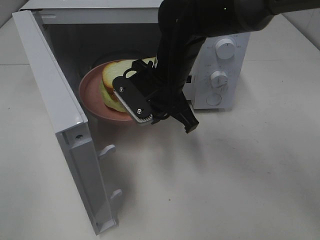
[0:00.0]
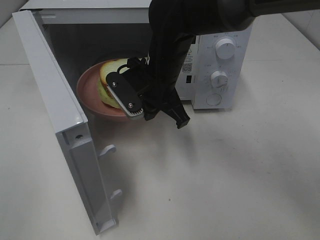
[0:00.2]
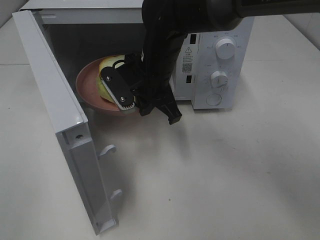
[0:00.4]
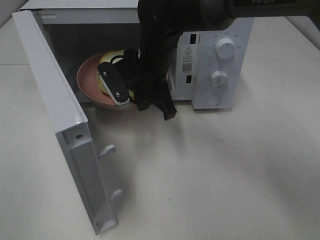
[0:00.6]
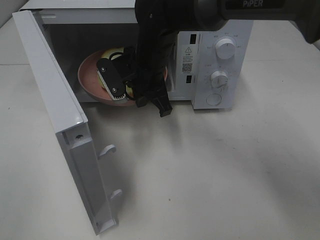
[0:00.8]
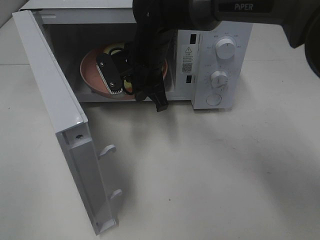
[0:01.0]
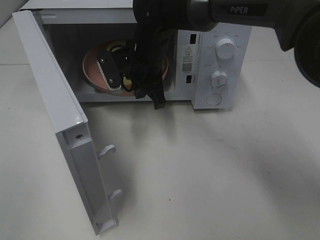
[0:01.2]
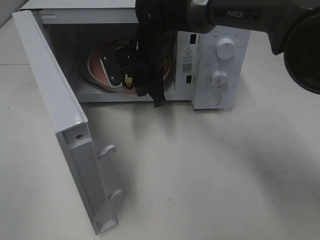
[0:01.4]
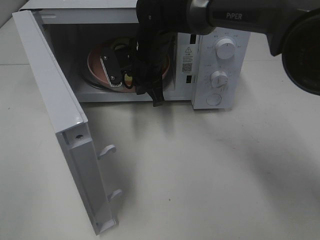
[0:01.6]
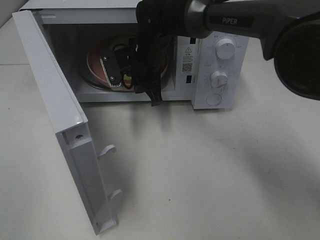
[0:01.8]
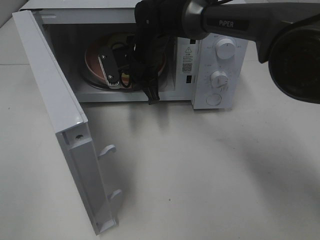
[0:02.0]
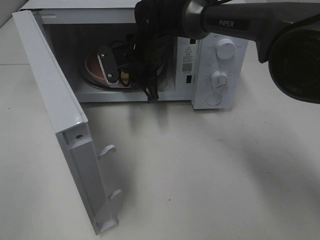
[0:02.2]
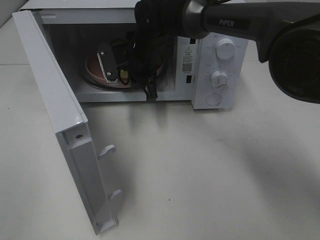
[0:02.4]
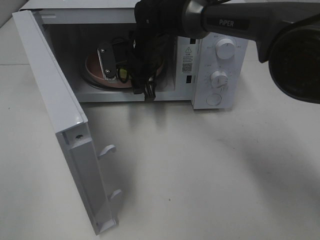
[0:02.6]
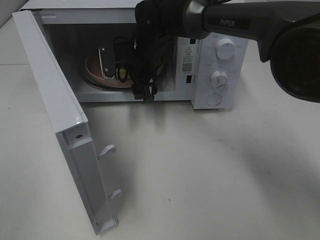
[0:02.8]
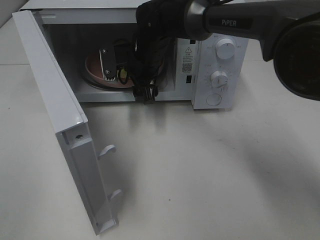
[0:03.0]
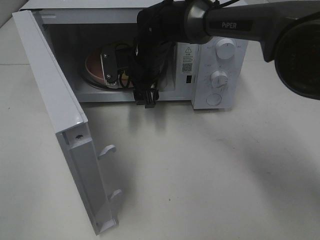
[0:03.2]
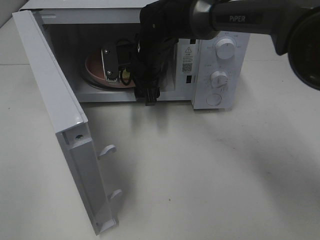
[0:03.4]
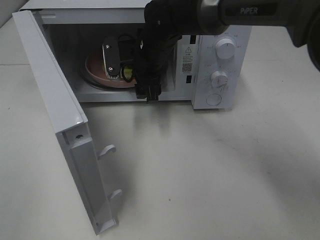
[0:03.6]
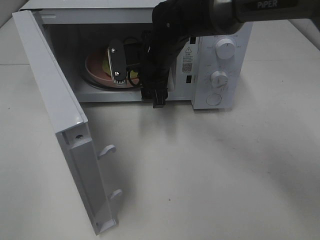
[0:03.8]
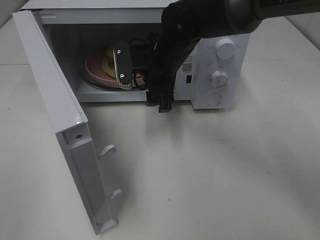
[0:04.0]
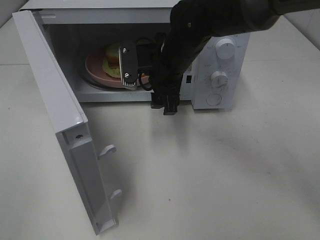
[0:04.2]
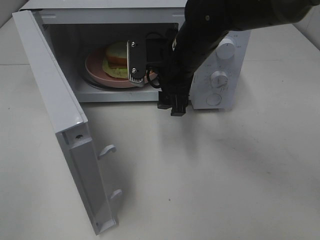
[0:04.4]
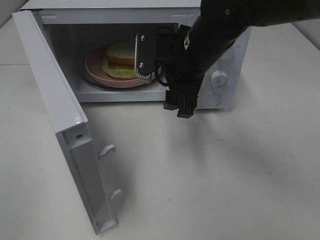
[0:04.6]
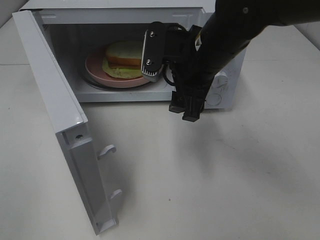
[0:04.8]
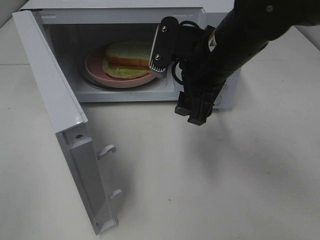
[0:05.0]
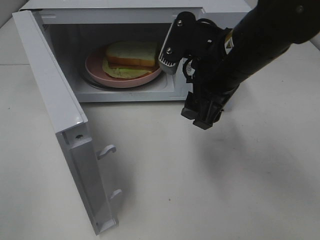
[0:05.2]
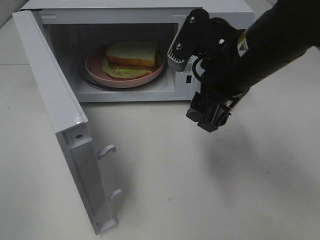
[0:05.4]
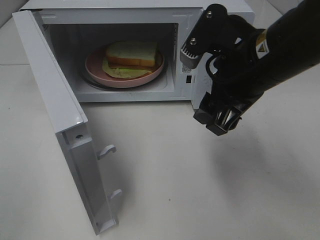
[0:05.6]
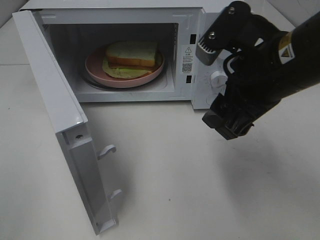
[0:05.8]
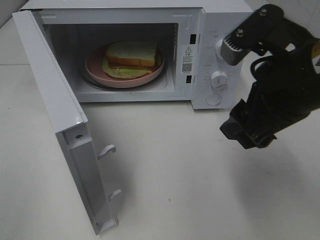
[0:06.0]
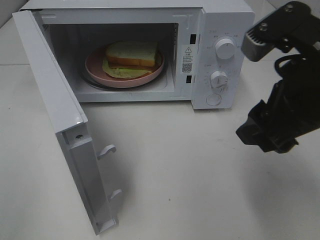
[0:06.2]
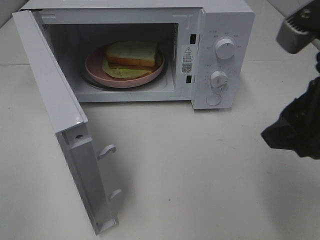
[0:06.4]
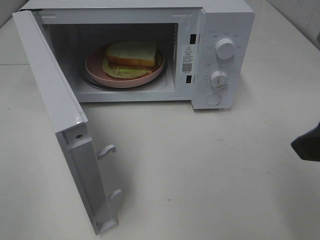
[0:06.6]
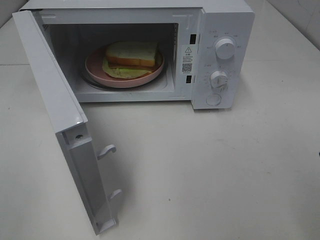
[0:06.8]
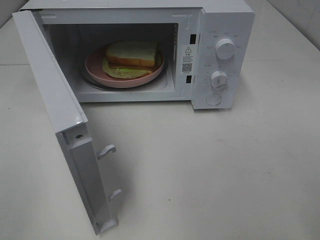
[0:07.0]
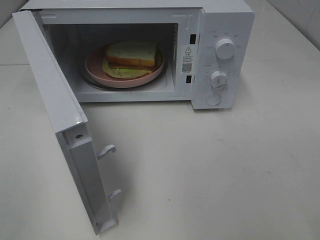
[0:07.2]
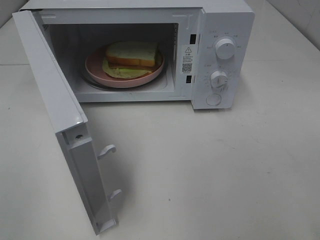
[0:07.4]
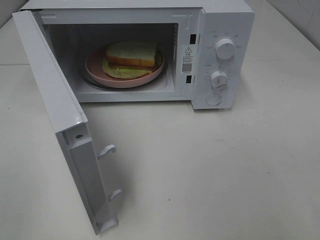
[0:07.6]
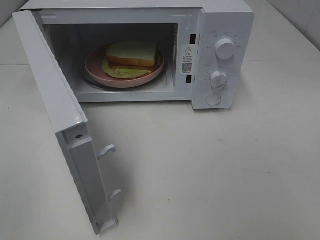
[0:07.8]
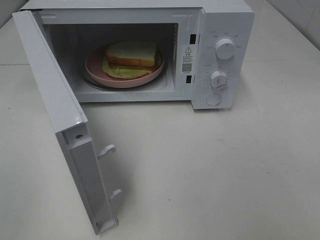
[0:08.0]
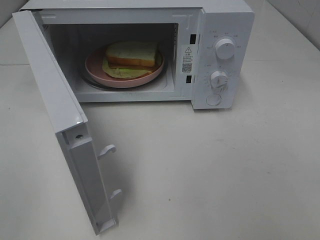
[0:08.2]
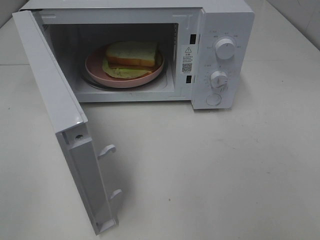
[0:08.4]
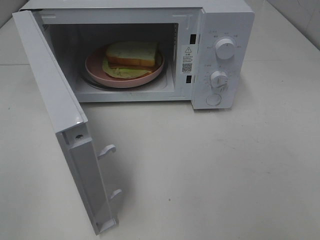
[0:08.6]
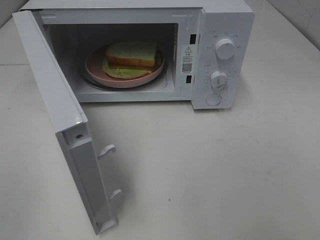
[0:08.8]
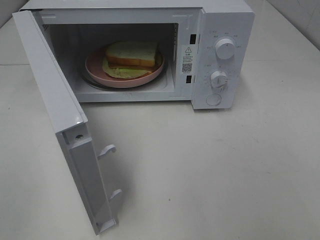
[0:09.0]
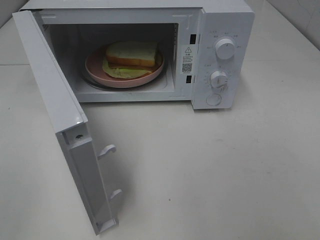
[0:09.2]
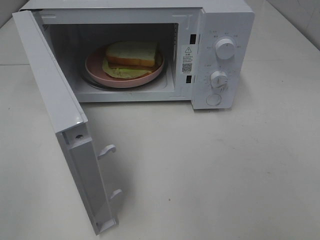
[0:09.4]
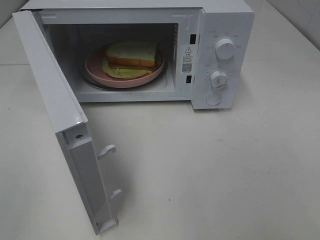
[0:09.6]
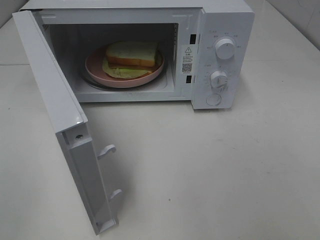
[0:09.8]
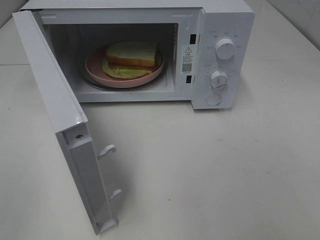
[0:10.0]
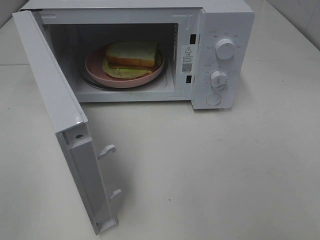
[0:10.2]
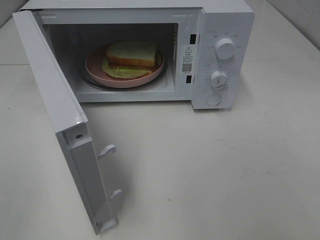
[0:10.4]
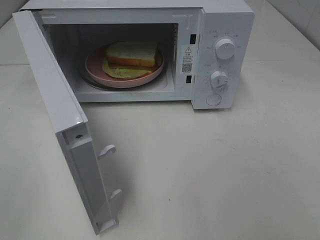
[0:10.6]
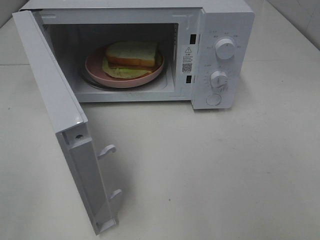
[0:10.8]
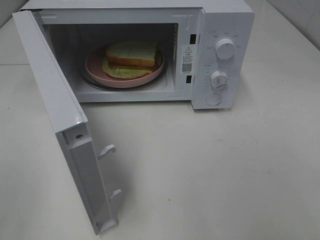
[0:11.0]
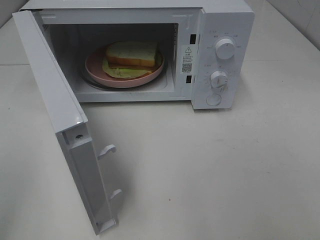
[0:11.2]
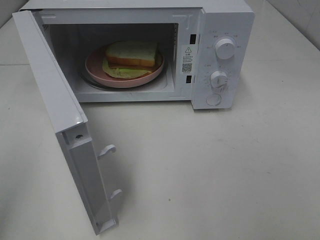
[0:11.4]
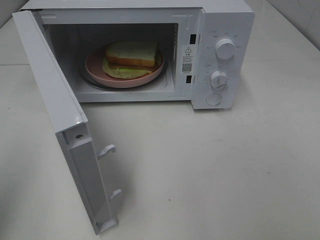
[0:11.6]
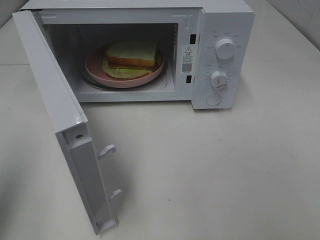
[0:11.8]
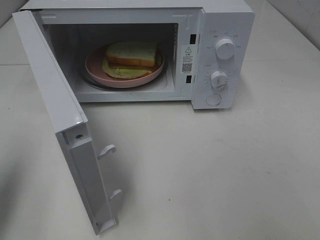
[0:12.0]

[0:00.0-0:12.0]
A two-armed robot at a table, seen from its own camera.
Task of the whole recording: Heat Sandwich.
Step, 0:00.0 to 0:03.8: Right hand: place the plate in the microwave.
0:00.0 to 0:01.6: The right gripper is displaced forward by roughly 10 cm.
0:01.6 to 0:03.0: The right gripper opens up.
0:03.0 to 0:04.4: The right gripper goes roughly 10 cm backward and to the right.
0:04.4 to 0:06.0: The right gripper travels backward, to the right and upward by roughly 20 cm.
0:06.0 to 0:07.6: The right gripper heads backward and to the right, covering about 15 cm.
0:09.0 to 0:10.4: The two grippers keep their place.
0:10.4 to 0:12.0: The left gripper travels forward by roughly 15 cm, and closes.

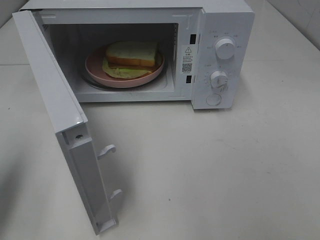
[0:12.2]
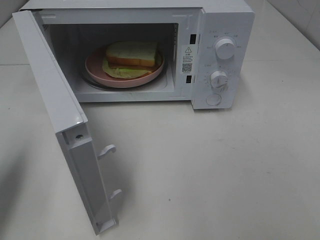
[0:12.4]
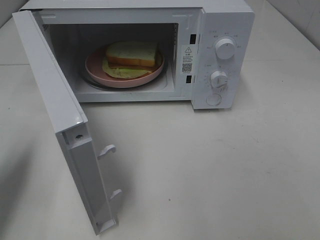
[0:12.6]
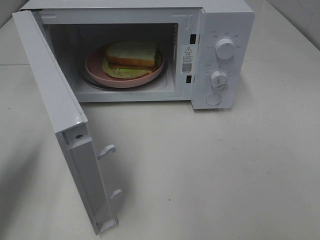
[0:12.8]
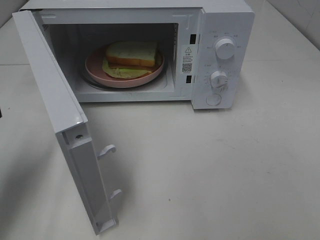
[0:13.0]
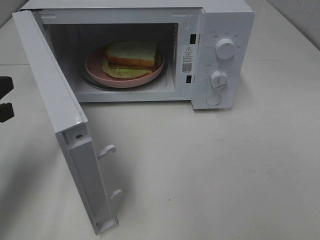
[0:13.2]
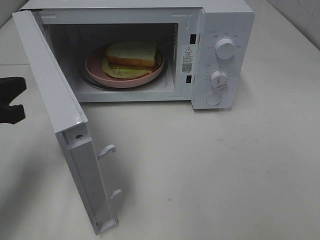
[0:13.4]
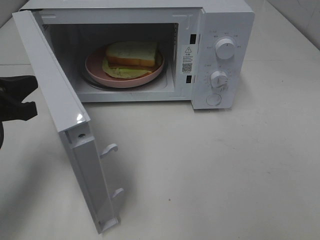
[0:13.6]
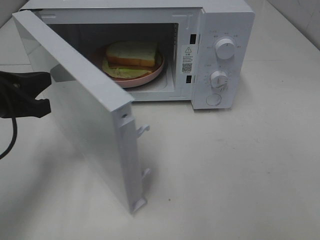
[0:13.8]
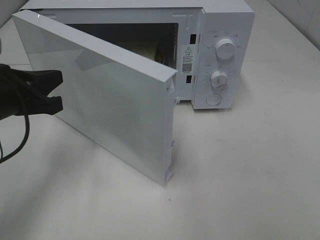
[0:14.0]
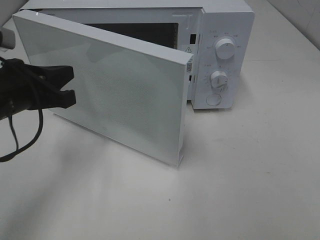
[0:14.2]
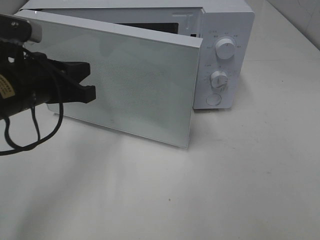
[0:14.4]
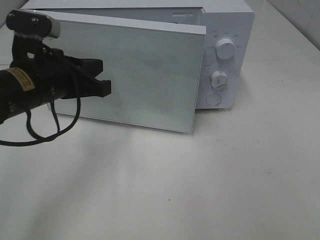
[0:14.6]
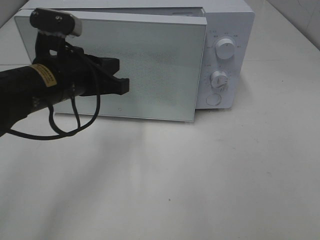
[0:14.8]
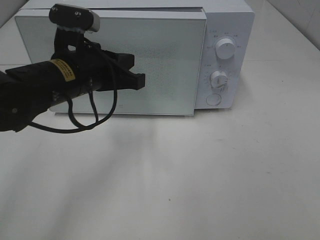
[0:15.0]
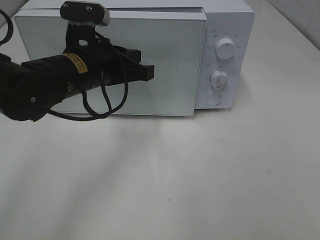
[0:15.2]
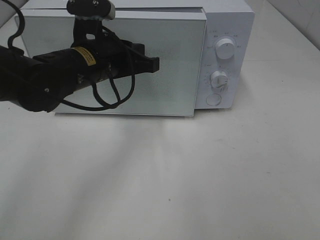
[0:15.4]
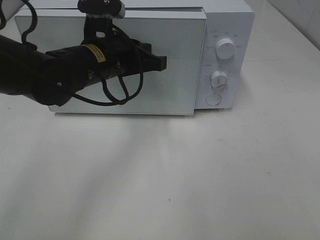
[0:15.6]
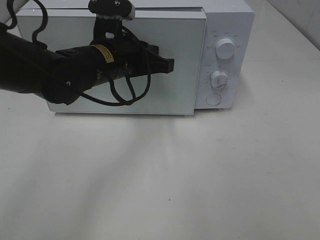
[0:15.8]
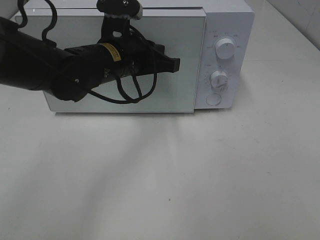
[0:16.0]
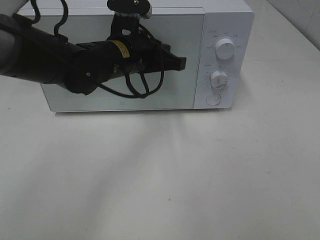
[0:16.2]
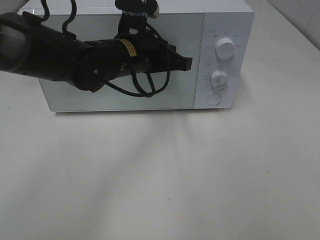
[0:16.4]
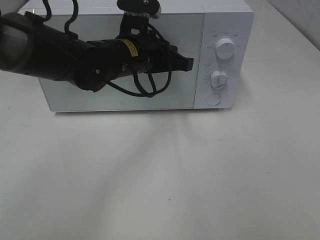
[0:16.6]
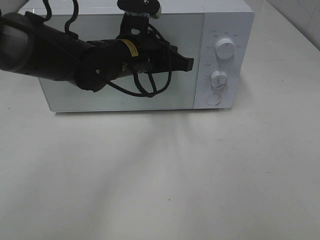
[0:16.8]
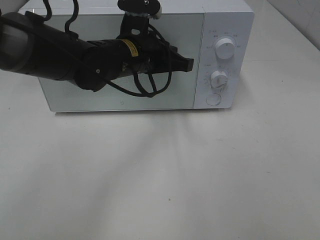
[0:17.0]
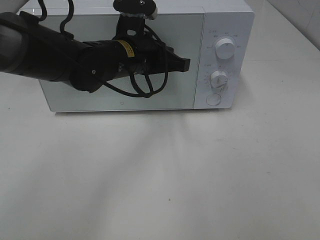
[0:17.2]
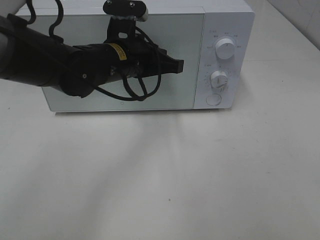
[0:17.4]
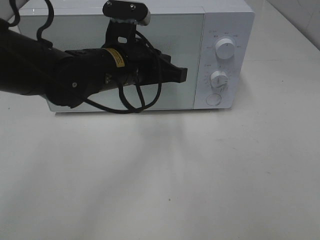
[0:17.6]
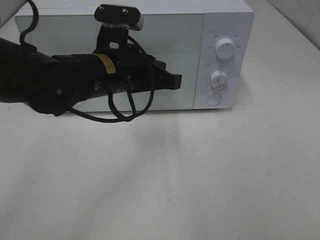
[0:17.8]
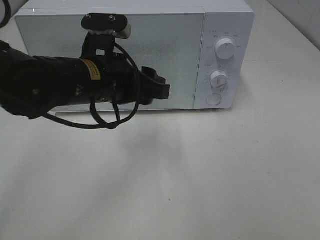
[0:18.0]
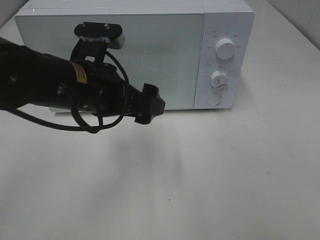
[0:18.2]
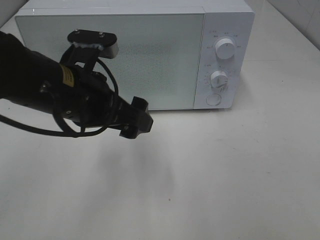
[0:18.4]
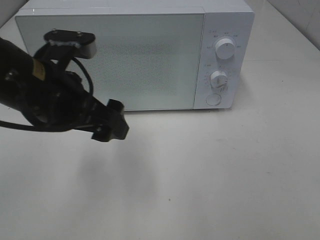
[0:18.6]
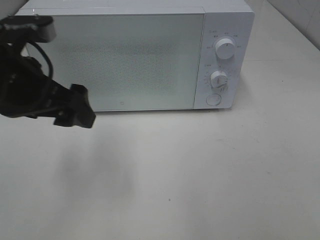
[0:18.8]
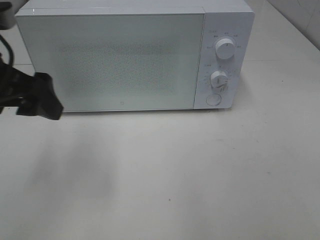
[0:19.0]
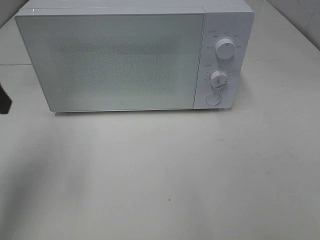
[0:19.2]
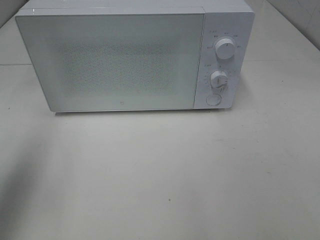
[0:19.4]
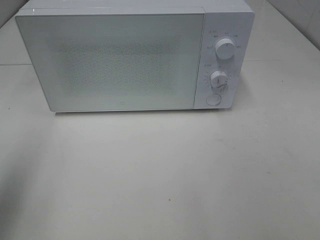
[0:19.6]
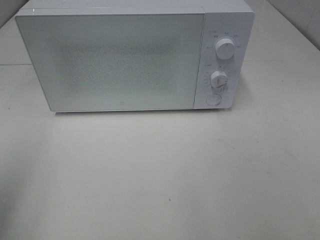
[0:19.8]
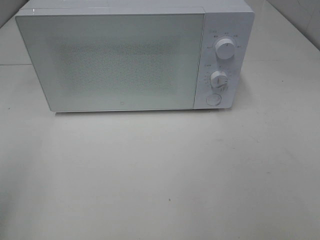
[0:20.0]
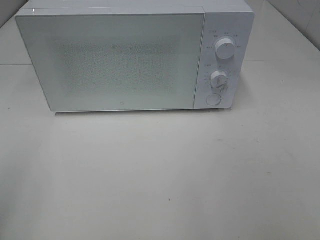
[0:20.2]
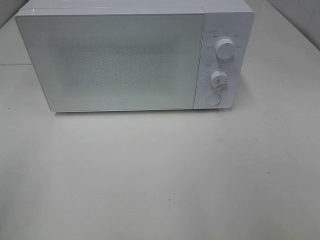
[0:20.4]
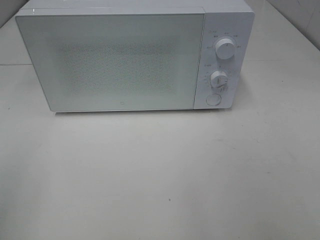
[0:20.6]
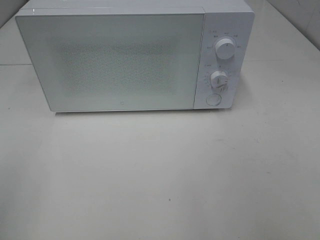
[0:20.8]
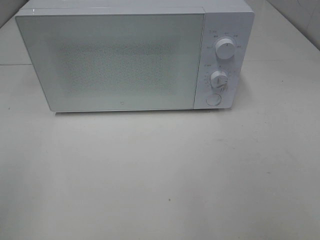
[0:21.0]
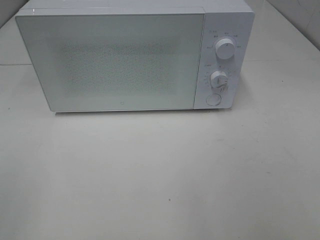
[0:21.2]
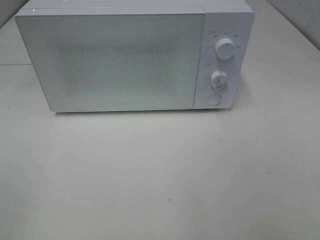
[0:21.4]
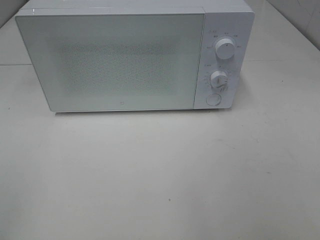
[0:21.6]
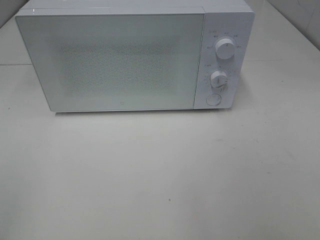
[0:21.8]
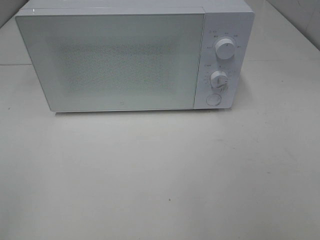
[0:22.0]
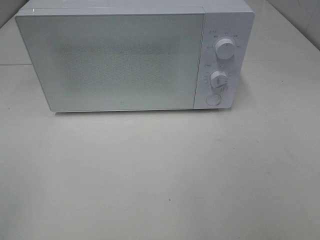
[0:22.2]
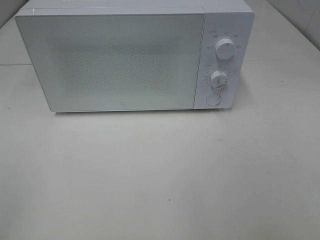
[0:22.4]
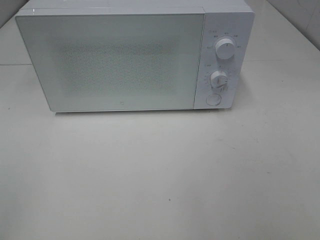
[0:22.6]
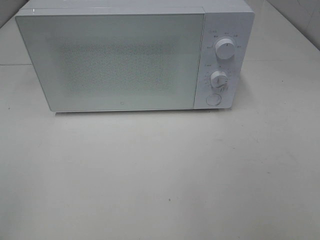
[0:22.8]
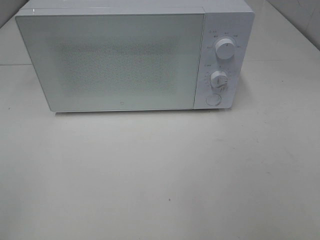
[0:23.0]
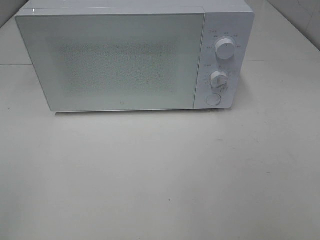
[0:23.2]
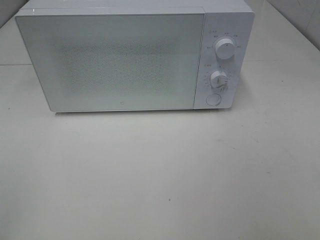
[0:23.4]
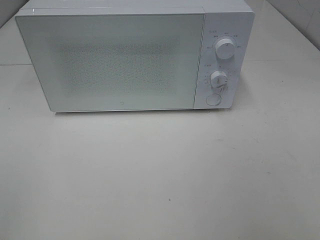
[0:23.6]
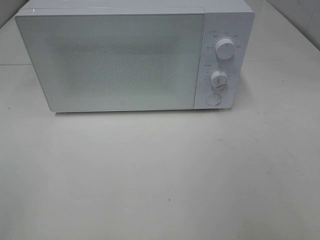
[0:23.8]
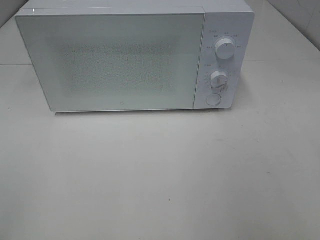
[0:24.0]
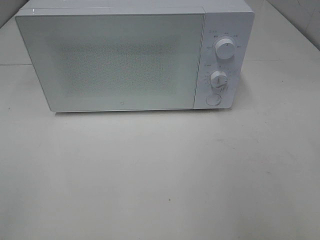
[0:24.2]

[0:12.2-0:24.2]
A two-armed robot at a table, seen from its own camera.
Task of the whole recording: Heat Sandwich.
Step, 0:12.2 to 0:17.4: Left hand: close the microwave door.
0:12.2 to 0:13.8: The left gripper is displaced forward, to the right and downward by some 15 cm.
0:13.8 to 0:15.2: The left gripper moves to the right and forward, about 15 cm.
0:15.2 to 0:16.6: The left gripper goes roughly 10 cm to the right and forward.
0:16.6 to 0:18.2: The left gripper moves backward and to the left, approximately 10 cm, and opens up.
0:18.2 to 0:19.8: The left gripper moves to the left and backward, some 25 cm.
